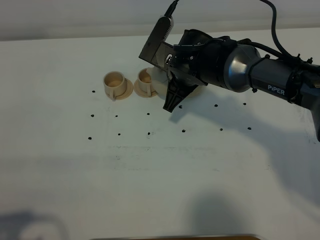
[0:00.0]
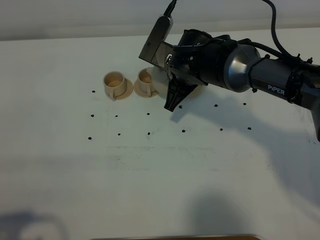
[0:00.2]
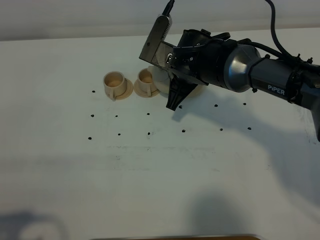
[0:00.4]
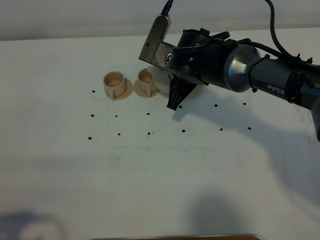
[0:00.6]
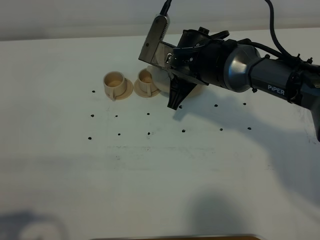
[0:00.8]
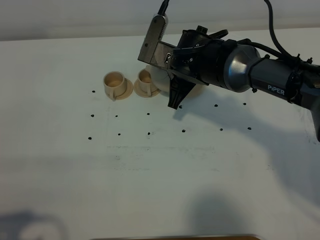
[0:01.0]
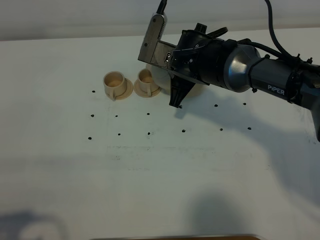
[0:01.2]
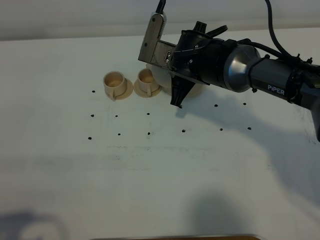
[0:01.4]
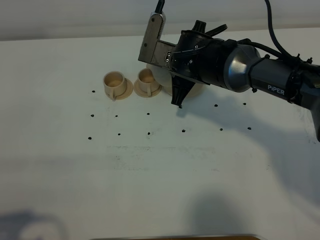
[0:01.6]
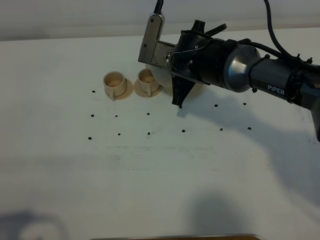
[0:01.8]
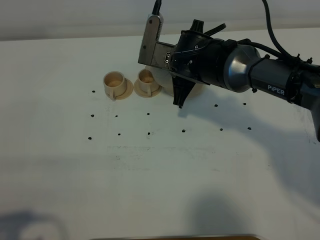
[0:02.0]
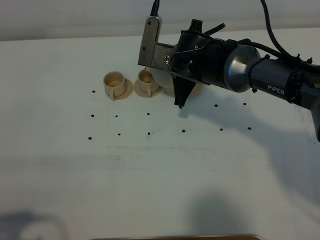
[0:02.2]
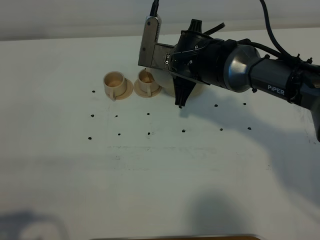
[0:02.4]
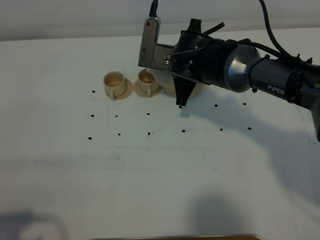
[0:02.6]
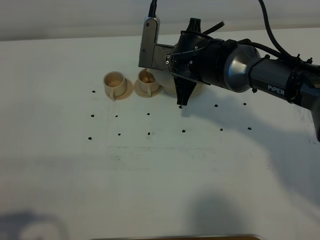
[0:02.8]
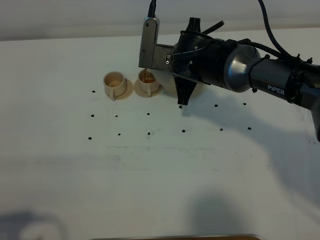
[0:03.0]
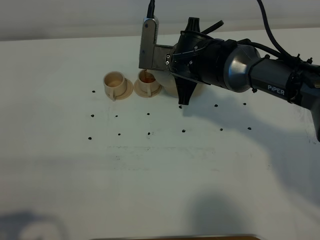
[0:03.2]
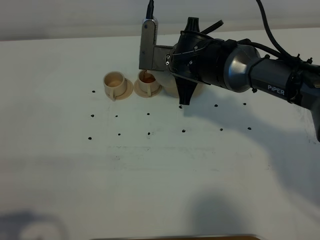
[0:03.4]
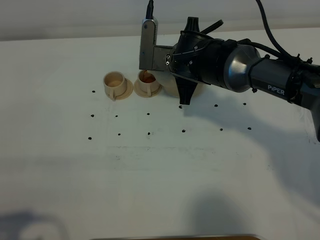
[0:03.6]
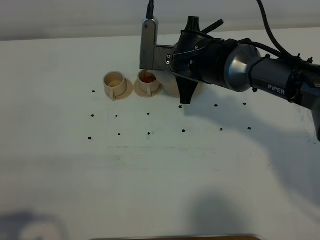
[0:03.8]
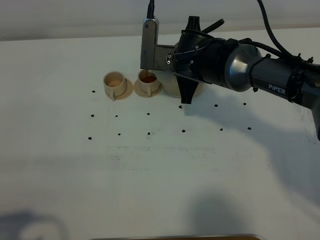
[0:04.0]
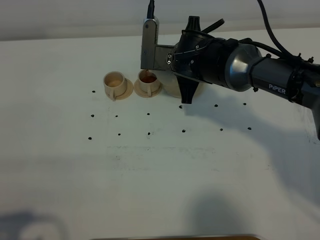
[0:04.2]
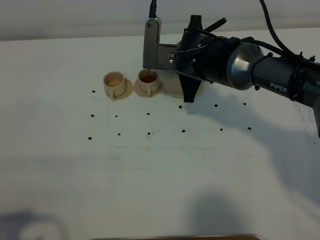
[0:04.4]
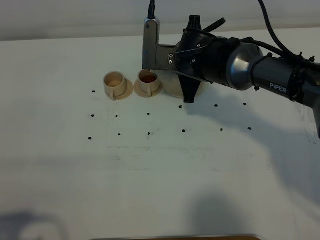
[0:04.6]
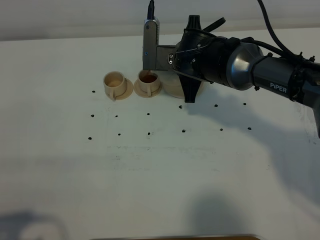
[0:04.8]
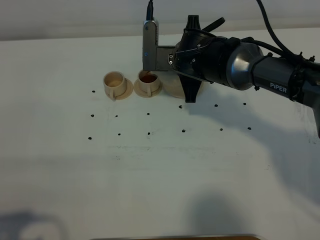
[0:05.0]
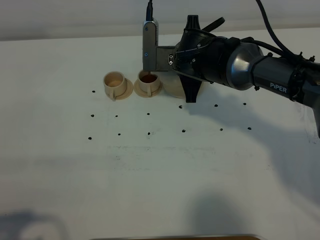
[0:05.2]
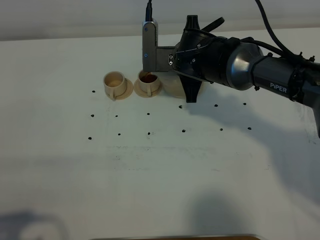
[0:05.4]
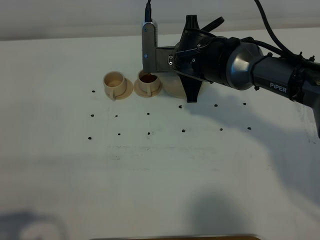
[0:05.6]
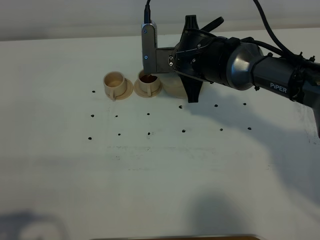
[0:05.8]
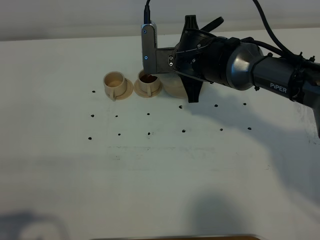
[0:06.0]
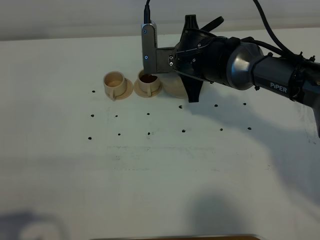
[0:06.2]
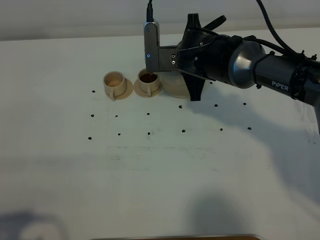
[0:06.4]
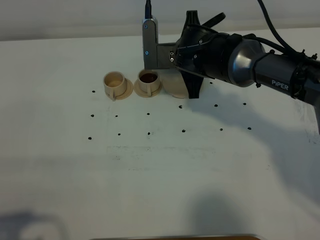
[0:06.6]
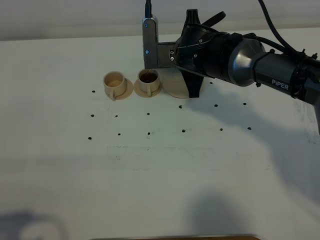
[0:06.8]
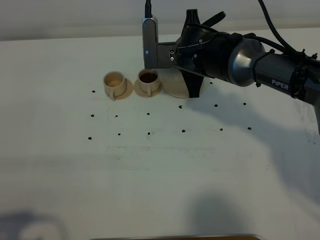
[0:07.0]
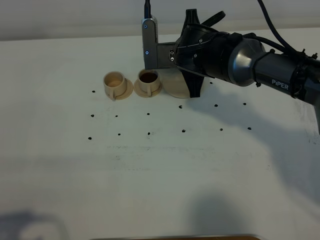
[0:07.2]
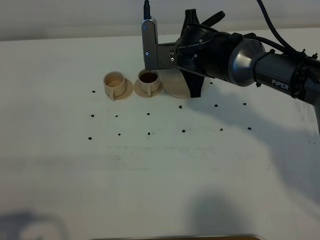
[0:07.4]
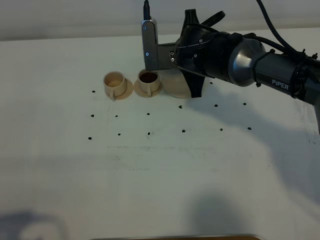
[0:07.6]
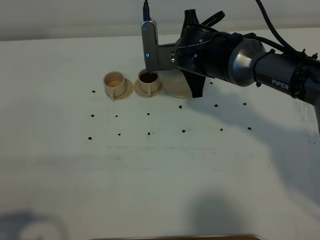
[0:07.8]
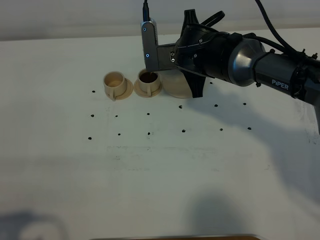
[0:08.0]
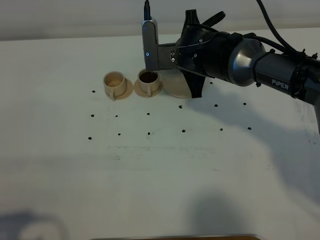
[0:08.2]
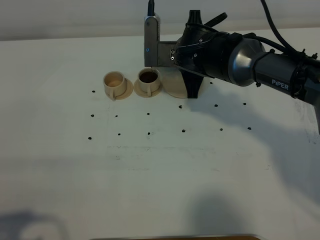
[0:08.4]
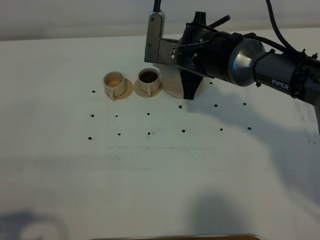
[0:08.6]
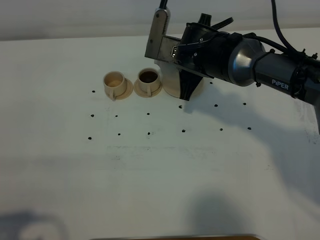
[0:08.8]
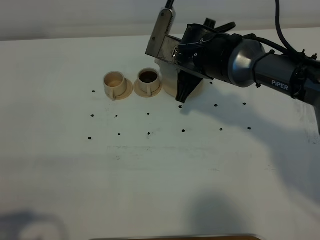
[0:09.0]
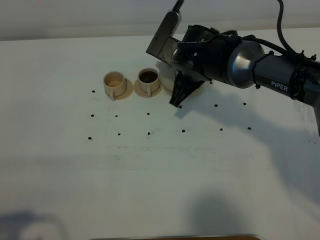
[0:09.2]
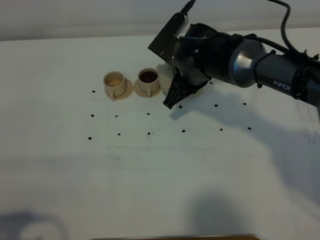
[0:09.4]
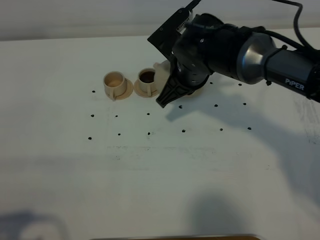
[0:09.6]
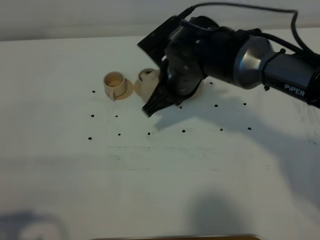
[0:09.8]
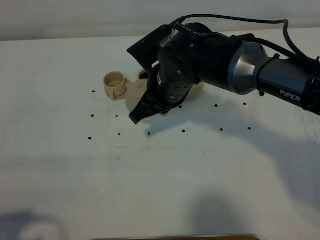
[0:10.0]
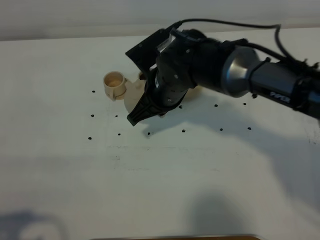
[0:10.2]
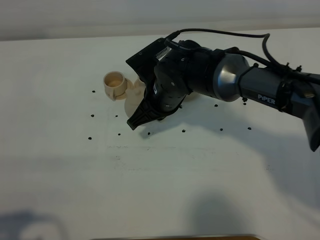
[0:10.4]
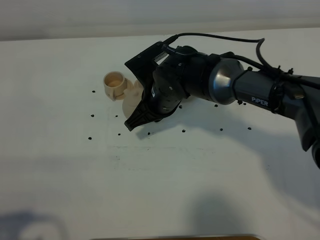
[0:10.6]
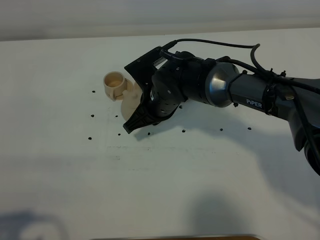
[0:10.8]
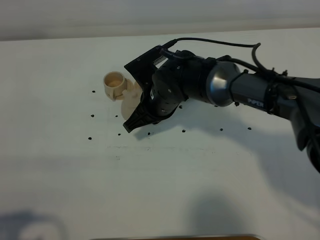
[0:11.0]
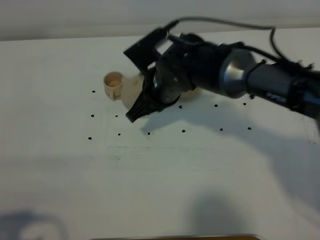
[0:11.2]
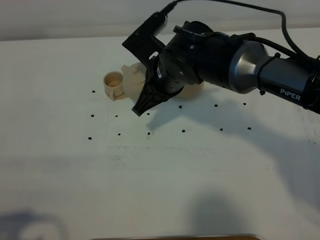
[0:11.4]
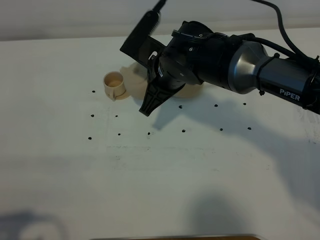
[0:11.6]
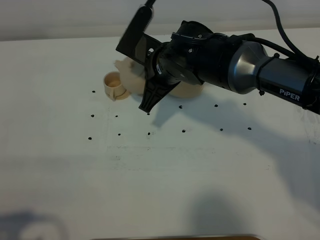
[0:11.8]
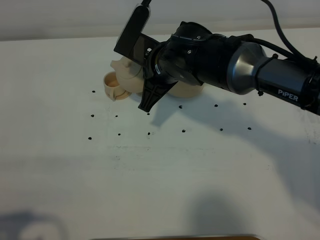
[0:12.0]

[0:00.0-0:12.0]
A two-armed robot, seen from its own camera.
Task of the whole recording: grasp the brown teapot and pour the tea into the two brown teacups one by one, put the brown teapot back in its original place.
Step, 0:00.0 to 0:08.6: Pour tea into the teacup with the right gripper.
0:00.0 to 0:01.6: The grippers make only small movements.
0:01.6 to 0:03.0: The grippers make only small movements.
0:03.0 to 0:04.4: Both grippers stay put.
0:04.4 to 0:06.0: There are only small adjustments of the grippers.
0:06.0 to 0:07.6: The two grippers keep their place.
0:09.0 to 0:10.4: The right gripper heads to the left, covering some 5 cm.
0:10.4 to 0:12.0: The right gripper ends up roughly 5 cm from where it was.

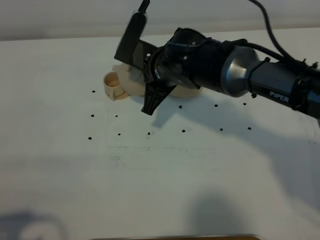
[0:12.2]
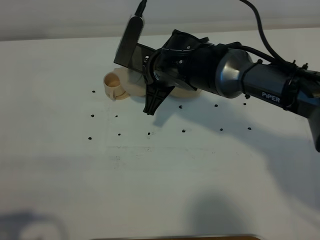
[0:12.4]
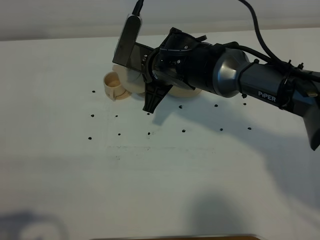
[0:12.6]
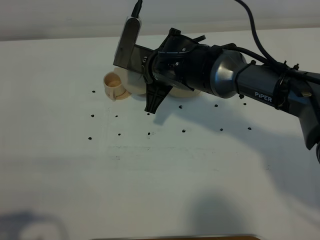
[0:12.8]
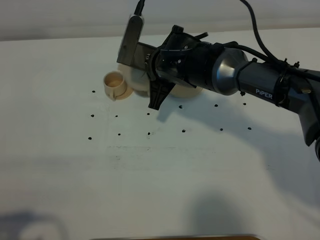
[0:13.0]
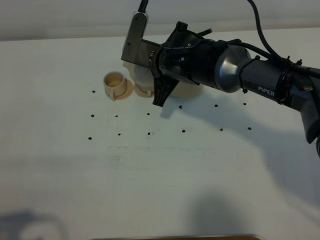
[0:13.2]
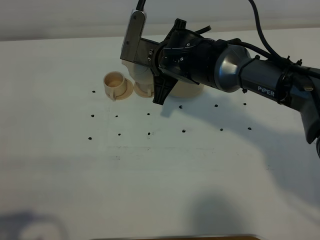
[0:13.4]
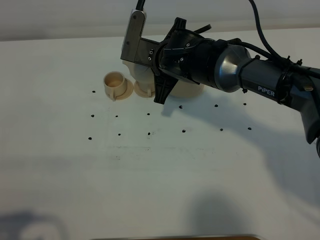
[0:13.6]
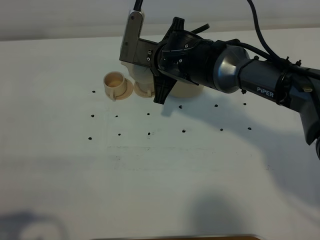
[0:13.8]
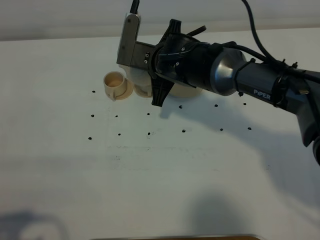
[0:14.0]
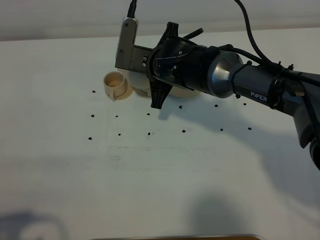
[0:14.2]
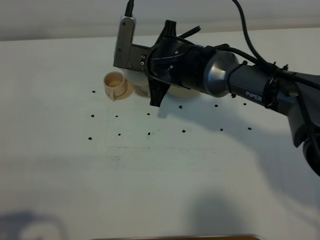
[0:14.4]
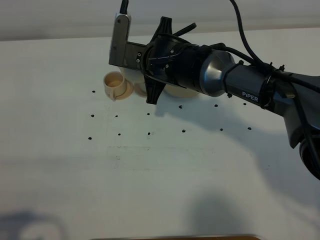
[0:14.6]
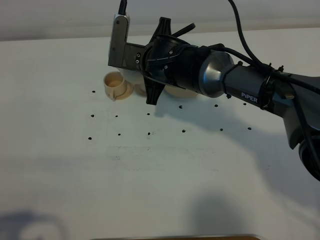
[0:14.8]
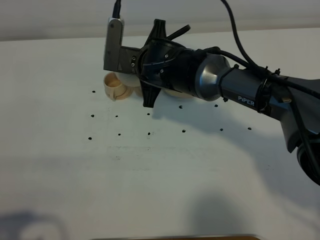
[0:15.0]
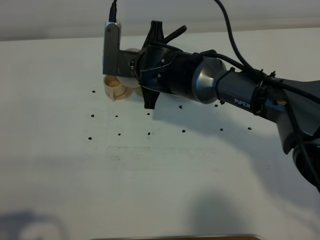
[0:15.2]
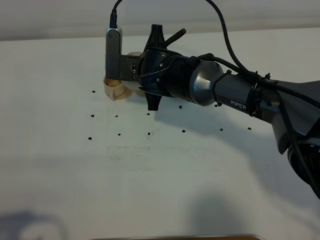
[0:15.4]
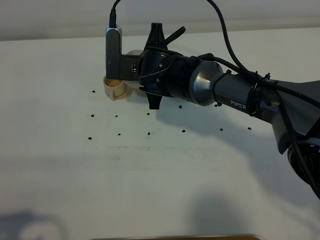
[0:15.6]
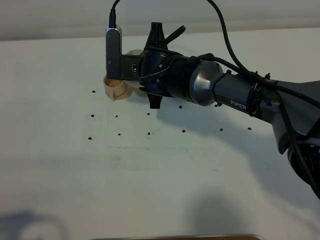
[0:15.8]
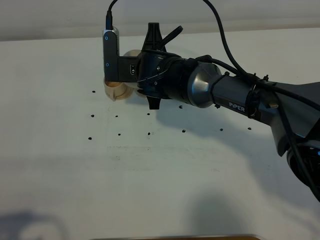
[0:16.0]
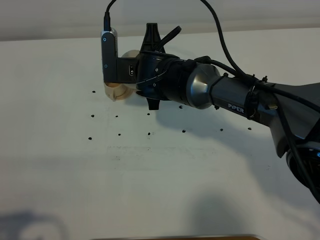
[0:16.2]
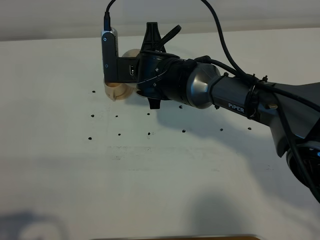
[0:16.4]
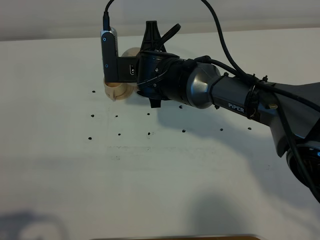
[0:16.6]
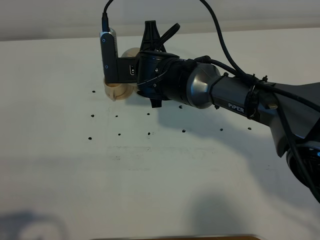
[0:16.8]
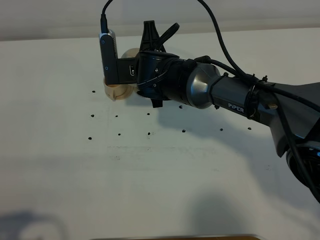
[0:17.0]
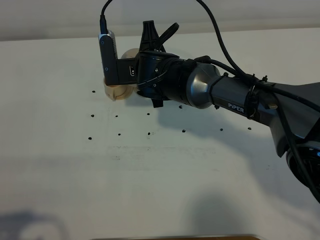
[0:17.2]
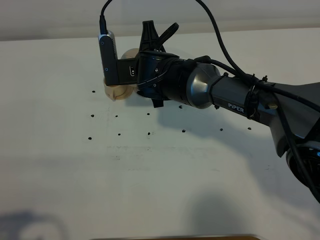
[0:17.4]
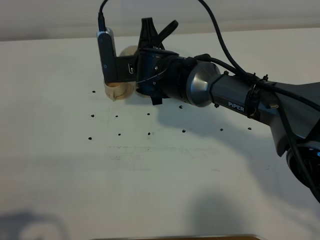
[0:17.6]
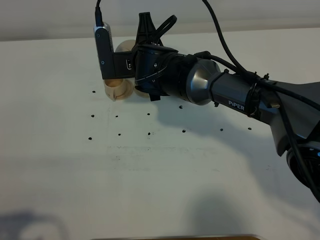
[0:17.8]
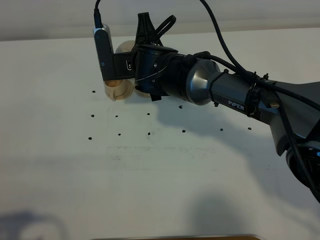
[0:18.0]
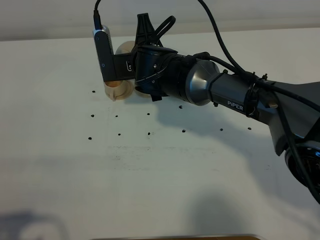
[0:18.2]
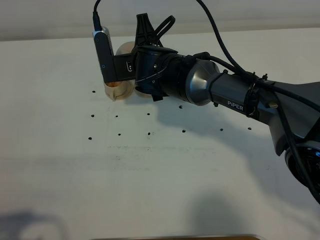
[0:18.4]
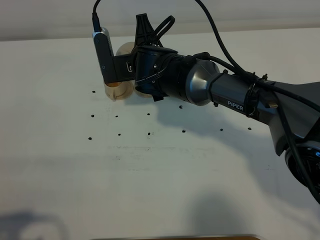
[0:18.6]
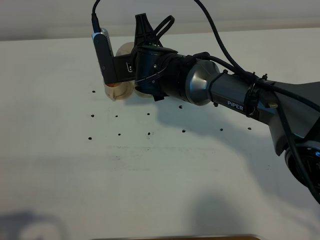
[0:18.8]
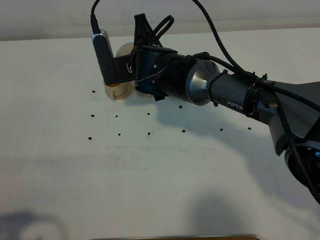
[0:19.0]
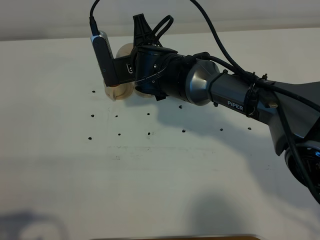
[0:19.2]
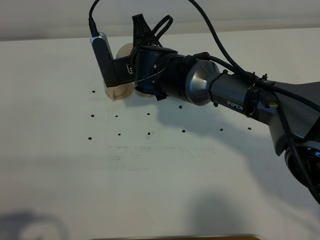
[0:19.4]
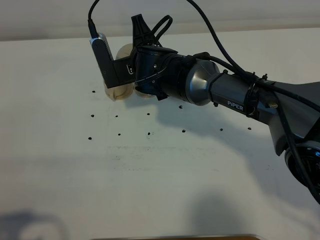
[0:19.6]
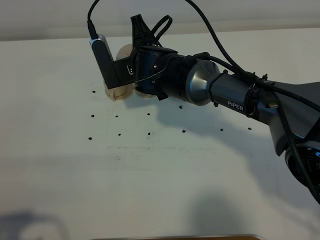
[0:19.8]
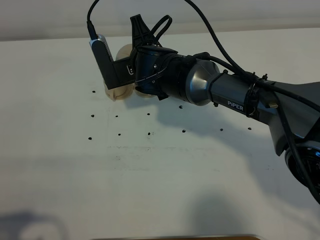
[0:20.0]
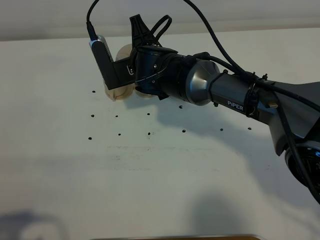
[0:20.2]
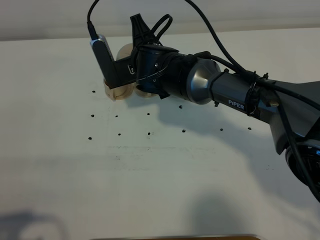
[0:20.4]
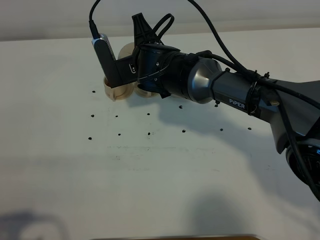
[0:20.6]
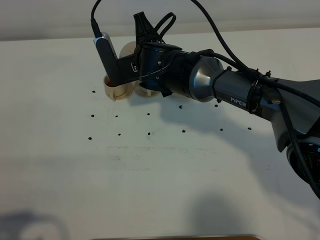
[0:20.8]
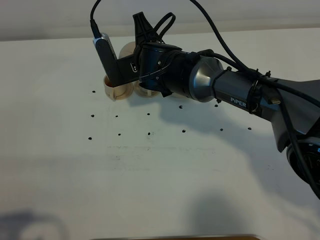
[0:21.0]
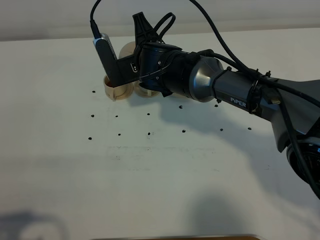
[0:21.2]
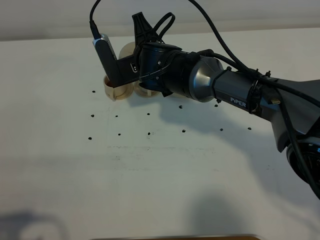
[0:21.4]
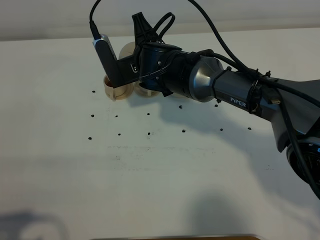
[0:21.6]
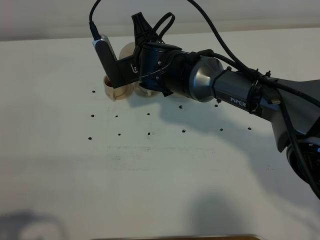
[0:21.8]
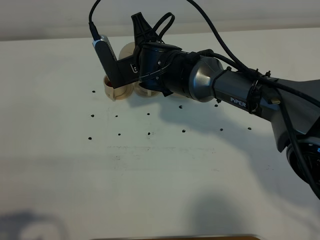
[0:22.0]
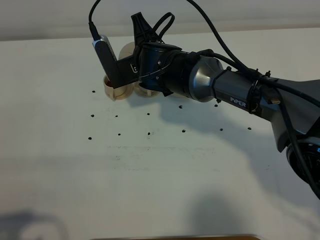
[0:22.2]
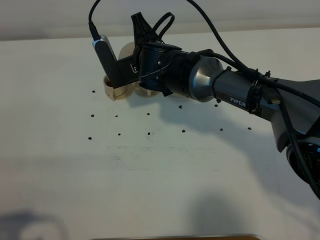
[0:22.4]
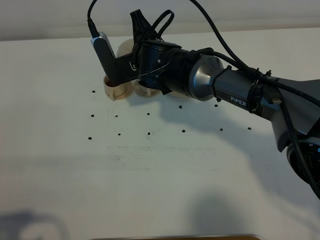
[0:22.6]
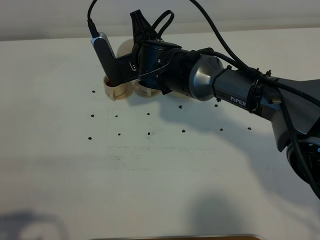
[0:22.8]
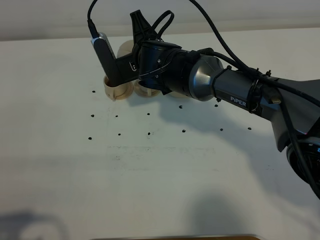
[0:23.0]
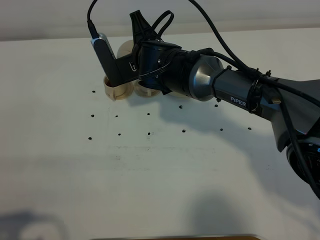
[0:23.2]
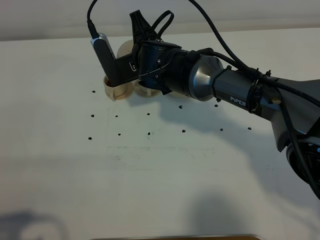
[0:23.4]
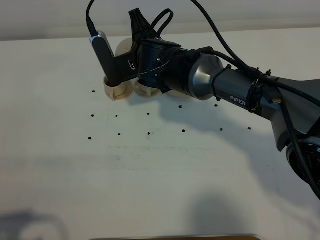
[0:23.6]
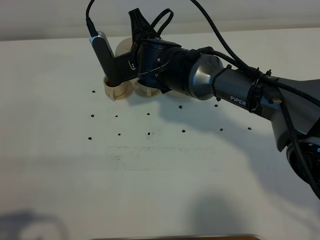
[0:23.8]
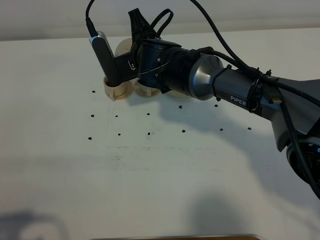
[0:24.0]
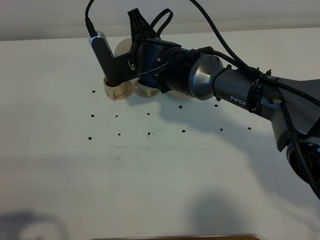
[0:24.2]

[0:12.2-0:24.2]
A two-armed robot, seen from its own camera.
Task of the whole recording: grasp the brown teapot and pour the tea into the two brown teacups one by one, put the brown teapot back in its original place.
0:12.2 to 0:13.8: There are only small adjustments of the grippers.
0:13.8 to 0:16.6: There are only small adjustments of the grippers.
0:16.6 to 0:19.8: The grippers move only a little.
0:19.8 to 0:24.2: The two grippers keep their place.
